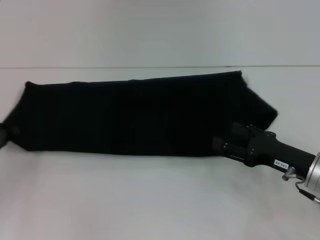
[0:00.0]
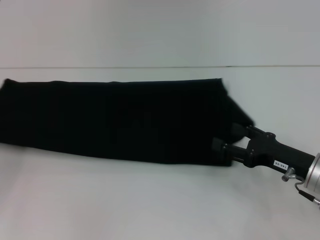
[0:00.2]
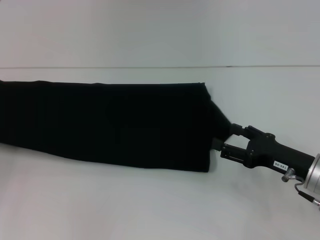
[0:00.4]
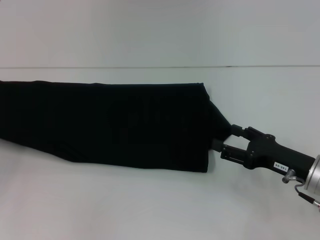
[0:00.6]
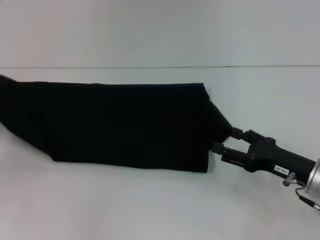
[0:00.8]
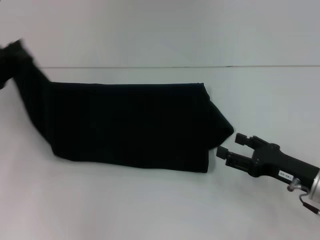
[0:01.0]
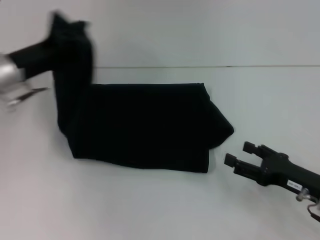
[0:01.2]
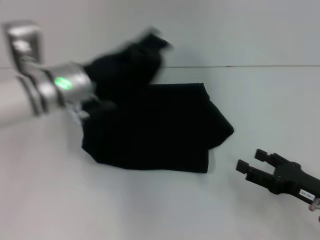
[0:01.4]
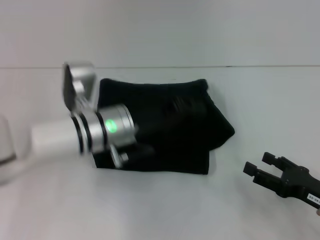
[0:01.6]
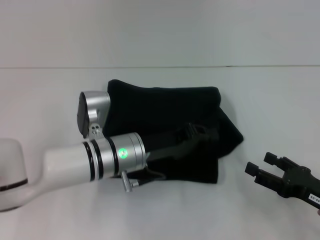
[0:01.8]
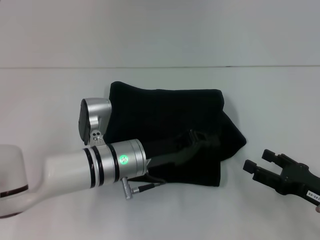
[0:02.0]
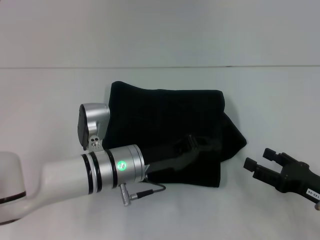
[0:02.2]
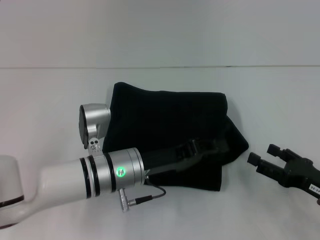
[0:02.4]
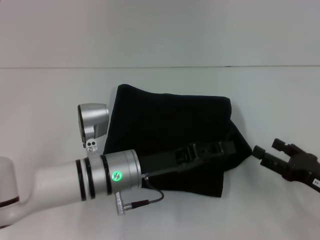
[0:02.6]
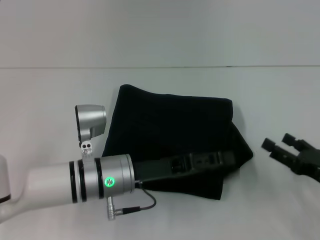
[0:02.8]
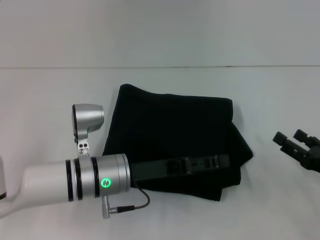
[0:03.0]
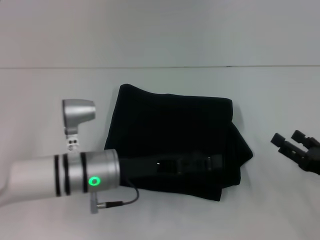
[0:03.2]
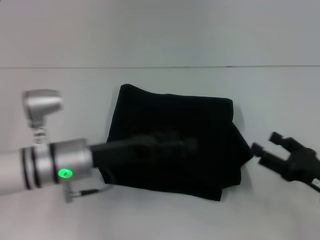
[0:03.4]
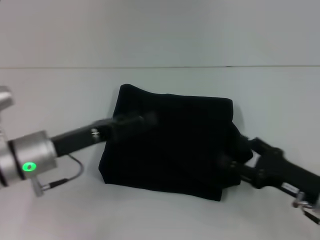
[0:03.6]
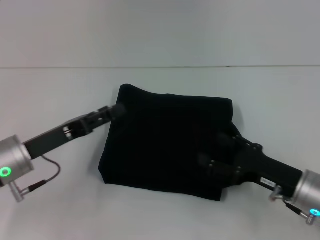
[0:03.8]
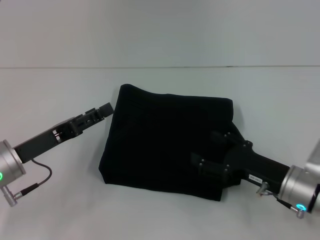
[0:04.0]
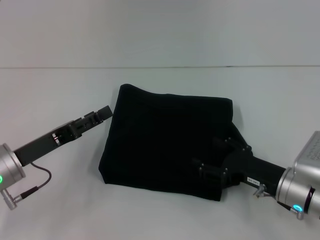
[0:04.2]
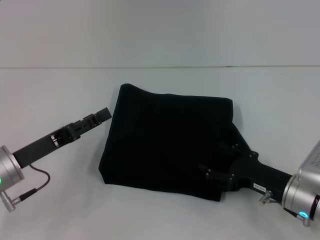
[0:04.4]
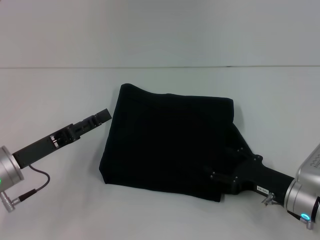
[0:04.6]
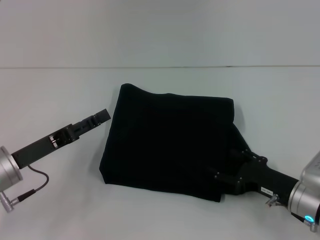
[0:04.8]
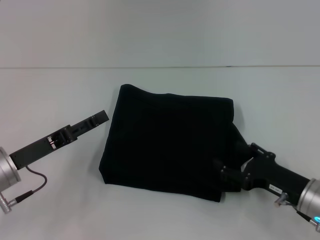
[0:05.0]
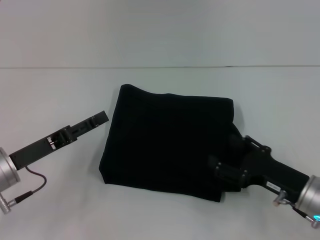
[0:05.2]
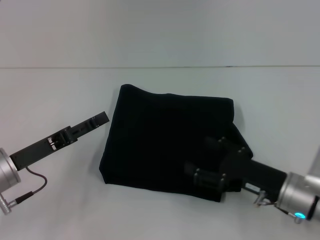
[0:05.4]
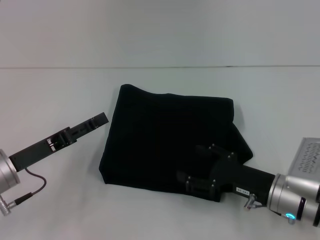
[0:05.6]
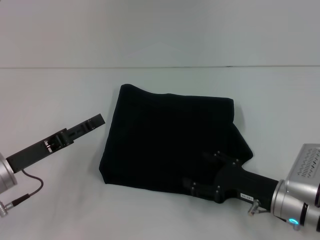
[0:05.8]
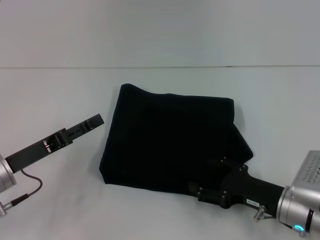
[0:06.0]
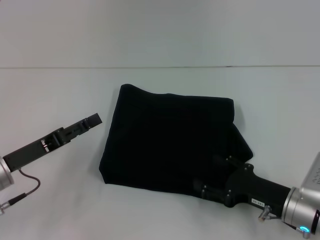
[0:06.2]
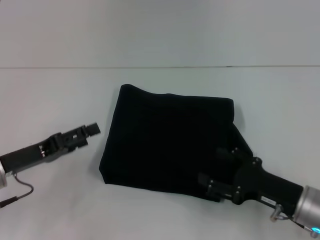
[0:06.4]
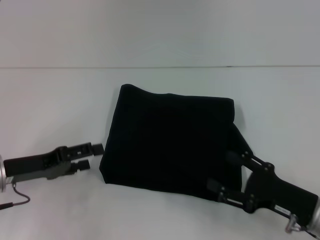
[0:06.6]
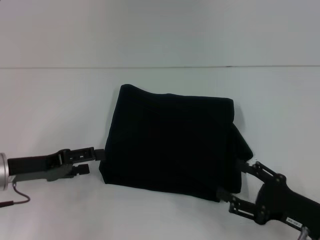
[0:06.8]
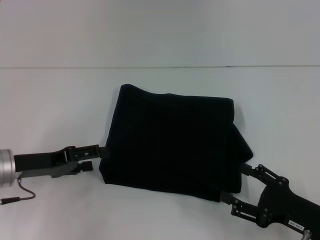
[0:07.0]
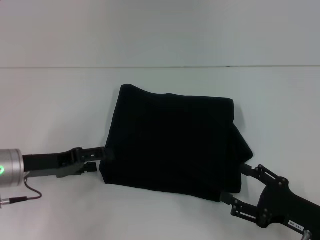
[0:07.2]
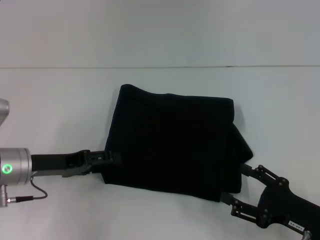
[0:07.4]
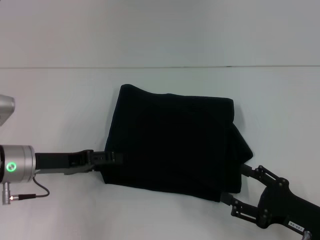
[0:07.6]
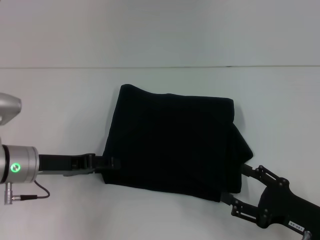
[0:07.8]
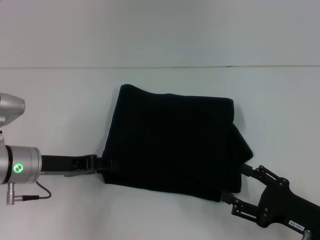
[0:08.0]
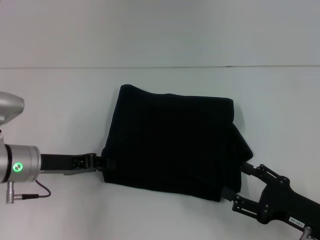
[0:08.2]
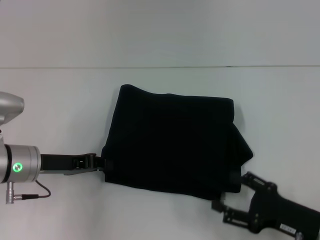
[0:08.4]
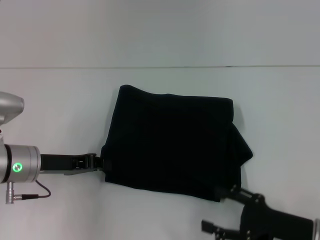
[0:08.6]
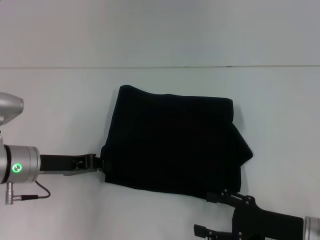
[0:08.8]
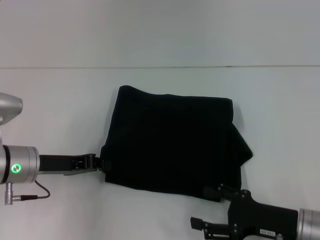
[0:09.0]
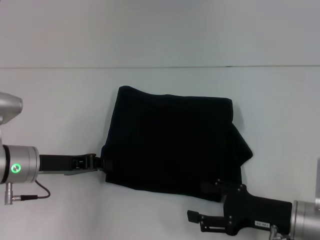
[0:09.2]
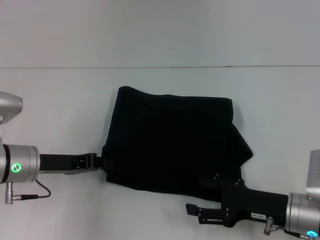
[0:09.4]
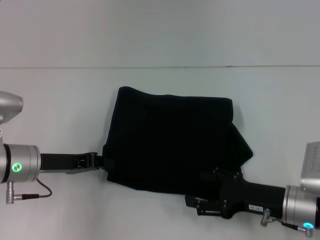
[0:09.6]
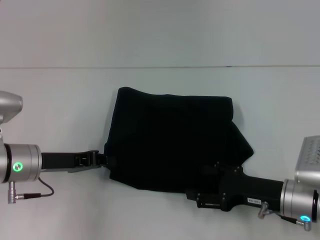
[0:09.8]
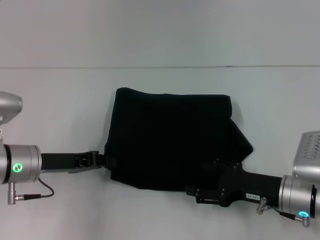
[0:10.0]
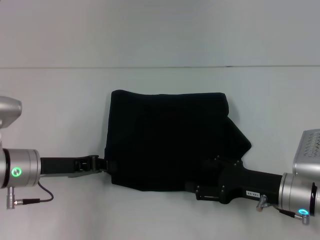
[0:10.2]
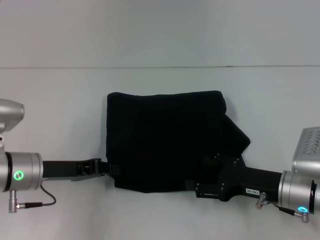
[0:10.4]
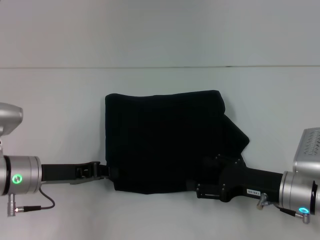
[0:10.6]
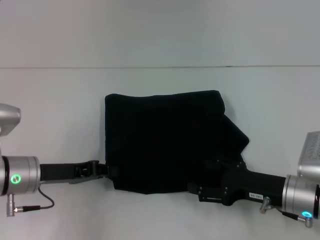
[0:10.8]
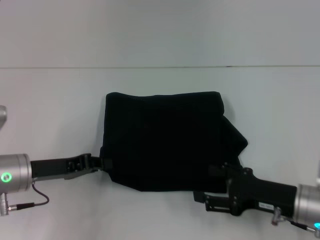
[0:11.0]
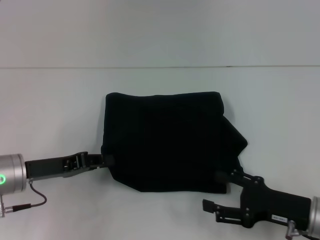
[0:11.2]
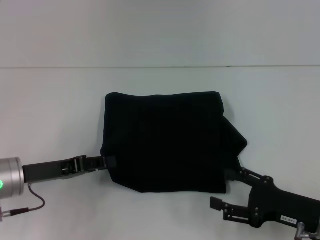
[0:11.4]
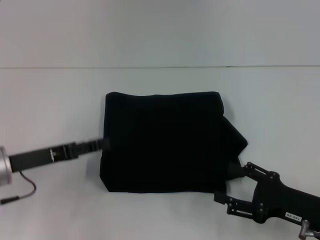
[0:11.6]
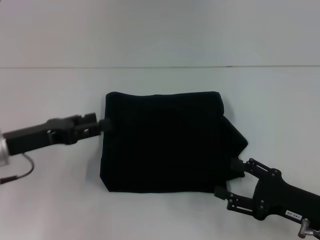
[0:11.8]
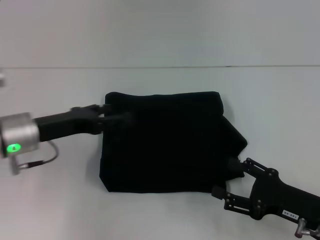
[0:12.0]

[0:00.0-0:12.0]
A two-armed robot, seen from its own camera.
Step, 0:00.0 to 0:03.4: Fold the clothes with your left hand.
0:00.0 to 0:01.6: The left gripper travels to the right by about 25 cm, while the right gripper heads backward, covering about 5 cm.
0:01.6 to 0:03.0: The left gripper shifts some 5 cm backward, and opens up.
0:03.0 to 0:04.4: The right gripper shifts roughly 10 cm to the left; the left gripper shifts roughly 15 cm to the left.
0:04.4 to 0:06.0: The grippers stay close to where they were, moving slightly.
0:06.0 to 0:07.6: The right gripper travels backward by some 5 cm.
0:07.6 to 0:09.0: The left gripper closes.
0:09.0 to 0:10.4: The right gripper is displaced forward by approximately 5 cm.
0:10.4 to 0:12.0: The right gripper moves backward, about 5 cm. Meanwhile the left gripper opens up.

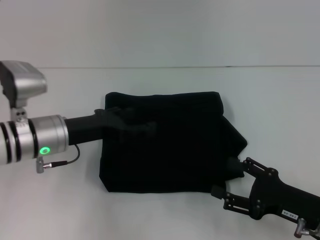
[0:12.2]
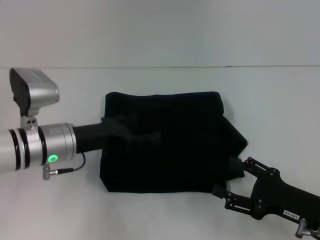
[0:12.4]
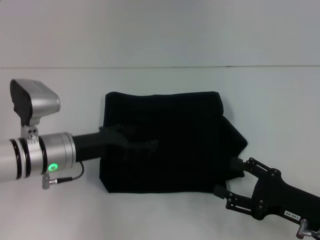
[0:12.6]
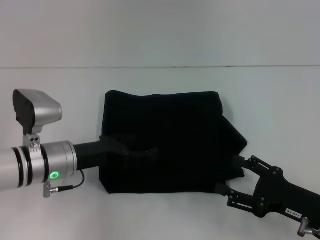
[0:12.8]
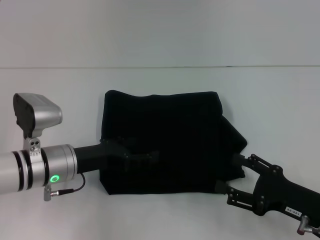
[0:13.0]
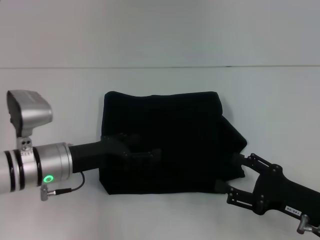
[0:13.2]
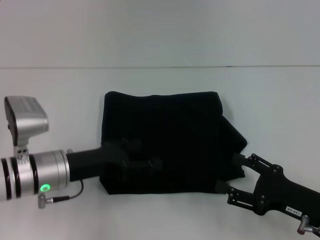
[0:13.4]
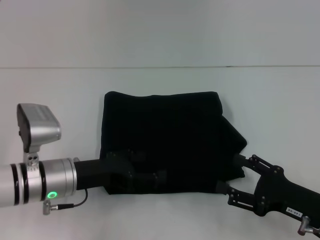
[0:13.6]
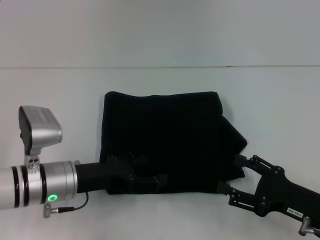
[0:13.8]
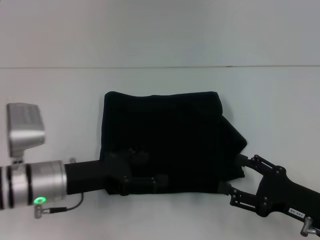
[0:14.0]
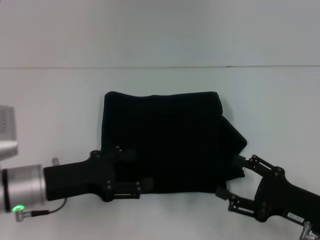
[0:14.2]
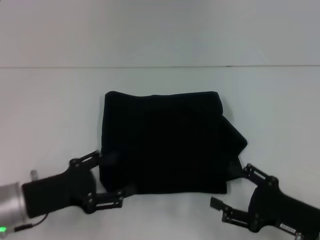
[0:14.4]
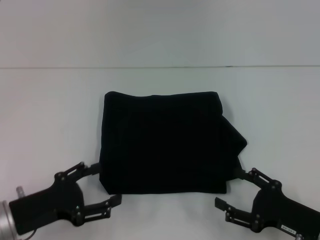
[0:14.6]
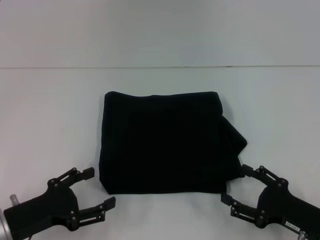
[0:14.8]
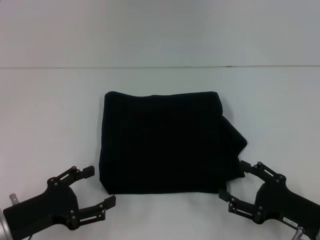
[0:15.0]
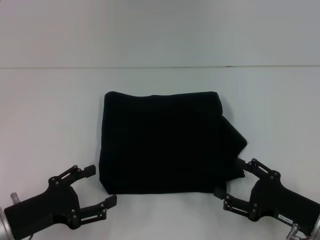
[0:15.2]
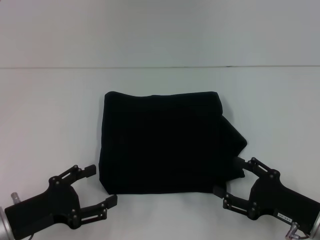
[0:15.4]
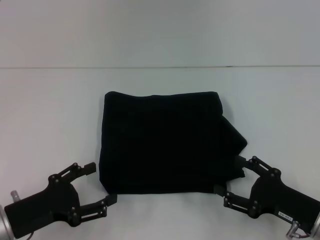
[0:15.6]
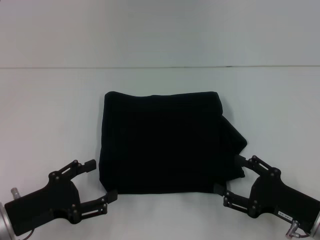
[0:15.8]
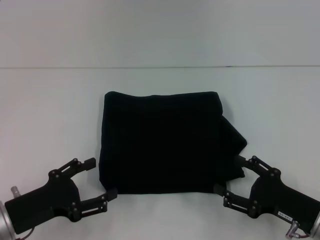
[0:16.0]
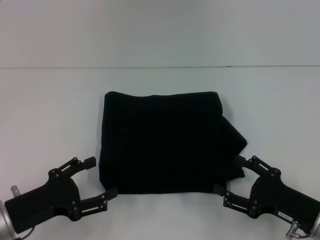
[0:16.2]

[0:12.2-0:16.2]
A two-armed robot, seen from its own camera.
0:12.2 to 0:13.6: The left gripper moves about 5 cm.
0:13.6 to 0:14.8: The left gripper shifts about 10 cm backward and to the left.
0:14.8 to 0:16.2: The grippers move only a little.

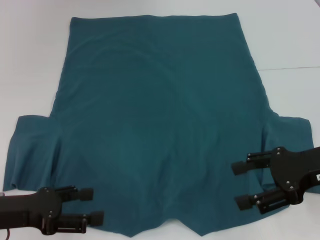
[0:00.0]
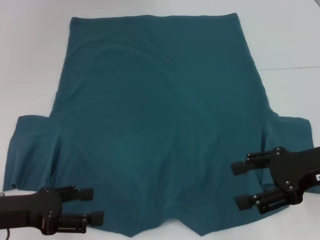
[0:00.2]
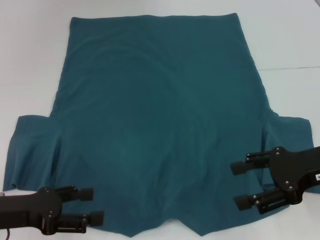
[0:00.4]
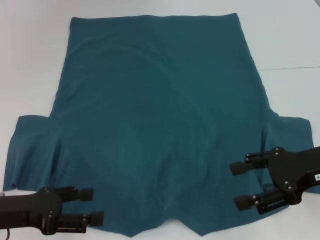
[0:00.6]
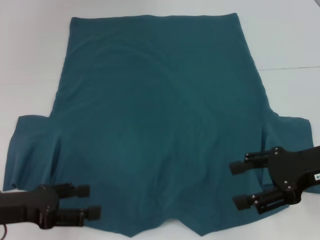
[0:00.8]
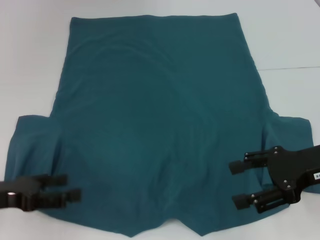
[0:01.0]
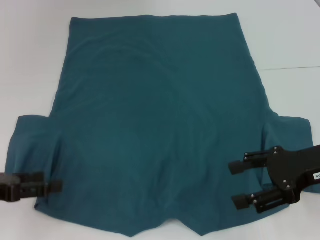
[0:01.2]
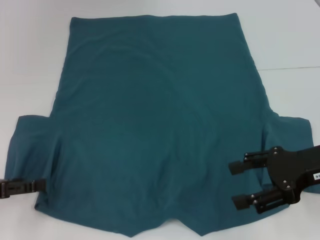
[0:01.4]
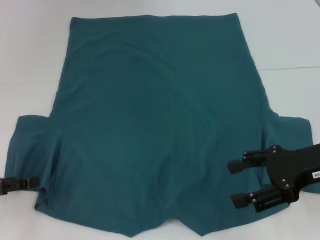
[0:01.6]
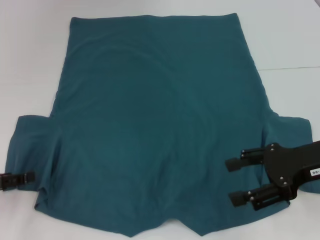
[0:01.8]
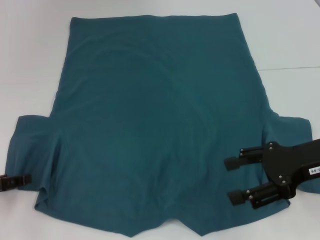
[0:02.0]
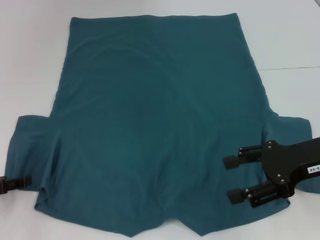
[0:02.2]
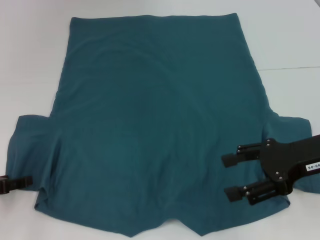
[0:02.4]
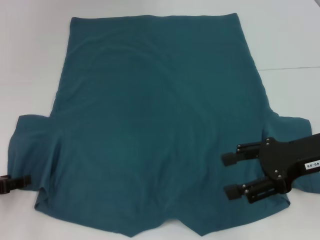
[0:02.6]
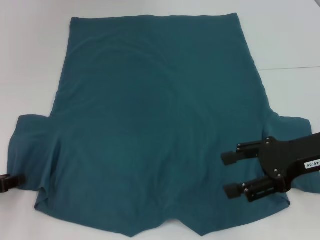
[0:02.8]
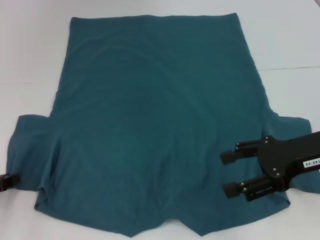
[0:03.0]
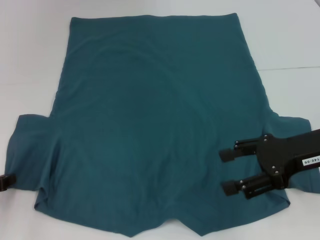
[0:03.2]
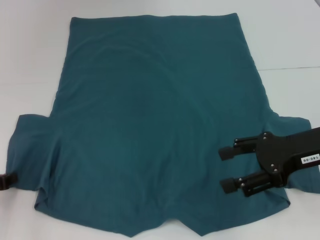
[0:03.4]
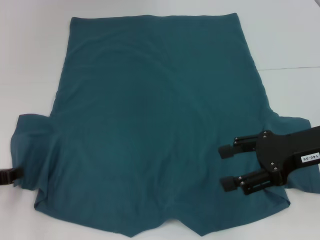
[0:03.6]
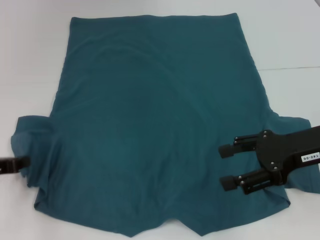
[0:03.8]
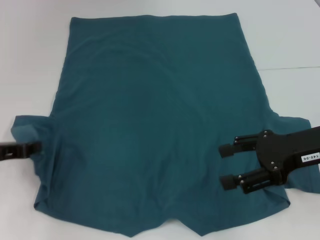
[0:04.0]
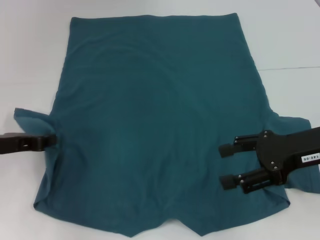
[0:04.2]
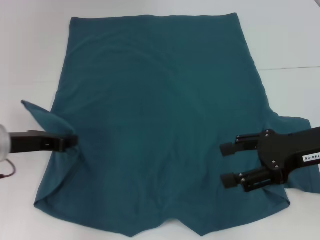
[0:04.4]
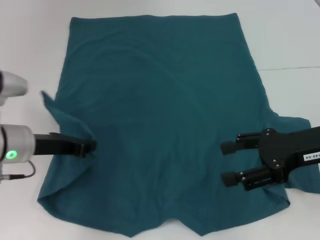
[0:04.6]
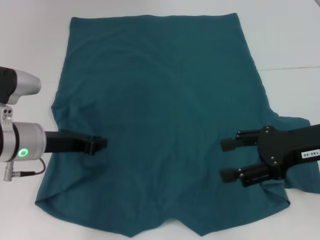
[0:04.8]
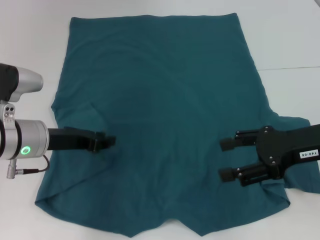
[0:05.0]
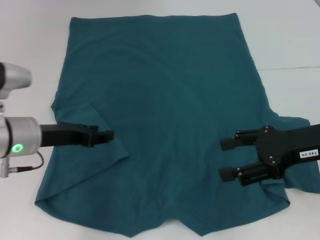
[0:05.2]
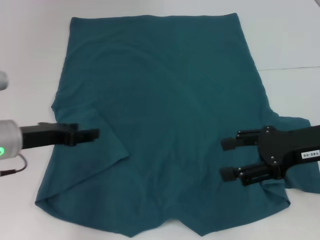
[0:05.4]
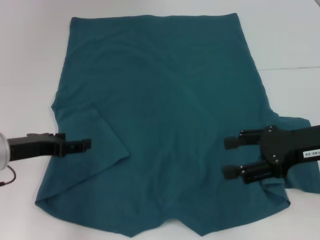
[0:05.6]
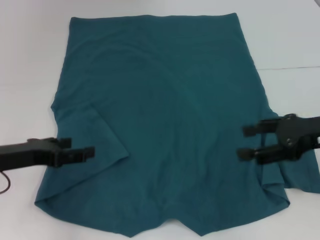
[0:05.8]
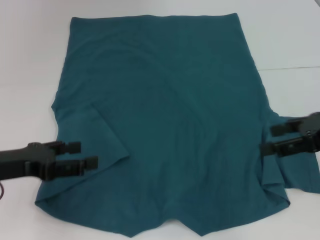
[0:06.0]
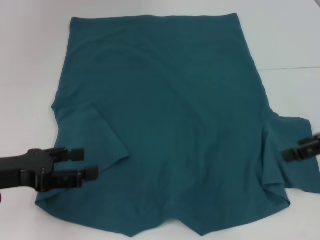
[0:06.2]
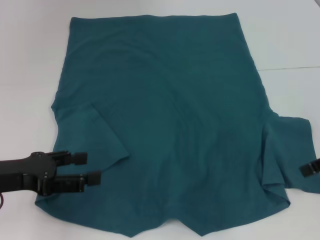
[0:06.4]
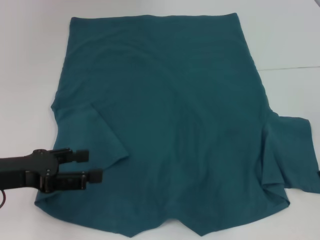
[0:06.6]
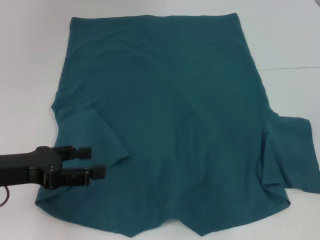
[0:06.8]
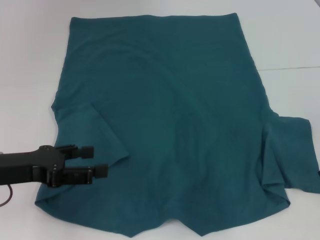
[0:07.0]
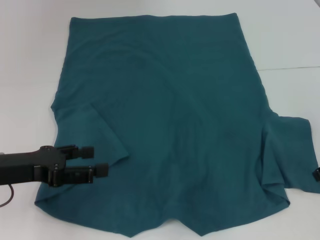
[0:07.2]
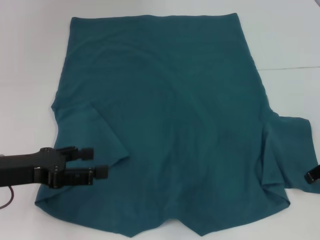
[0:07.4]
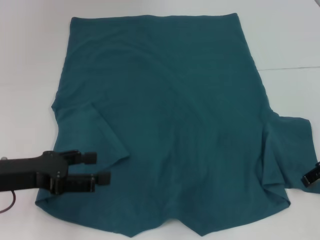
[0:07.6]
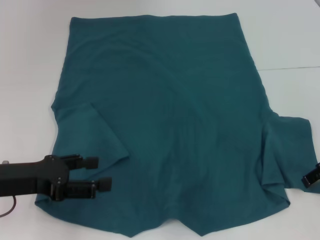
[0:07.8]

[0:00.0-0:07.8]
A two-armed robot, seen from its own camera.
Step, 0:00.0 to 0:05.0: Fold the bottom left sleeve with your left hand.
0:00.0 to 0:01.6: The left gripper goes approximately 5 cm to the left.
0:01.6 to 0:03.2: The left gripper closes.
0:03.2 to 0:04.6: The left gripper shifts roughly 15 cm to the right and forward.
0:04.6 to 0:06.2: The right gripper moves to the right, roughly 5 cm, while the left gripper shifts roughly 10 cm backward and to the left, and opens up.
0:06.2 to 0:07.8: The right gripper changes place by approximately 5 cm.
